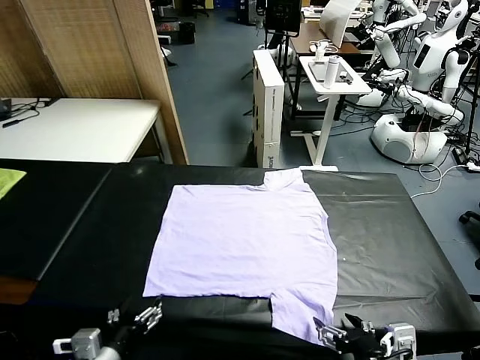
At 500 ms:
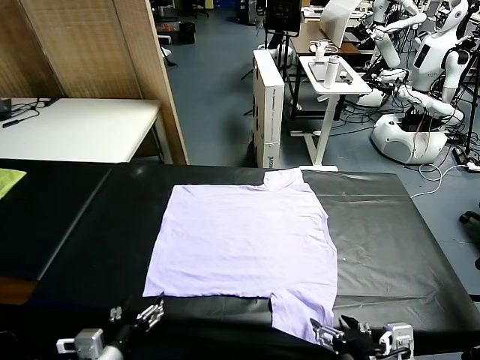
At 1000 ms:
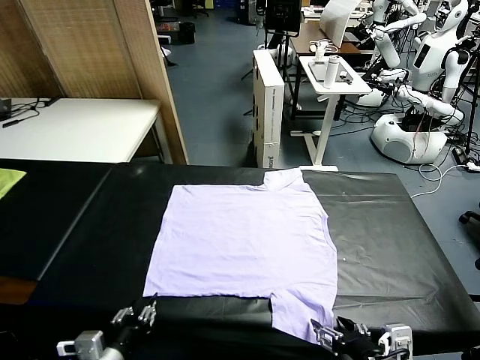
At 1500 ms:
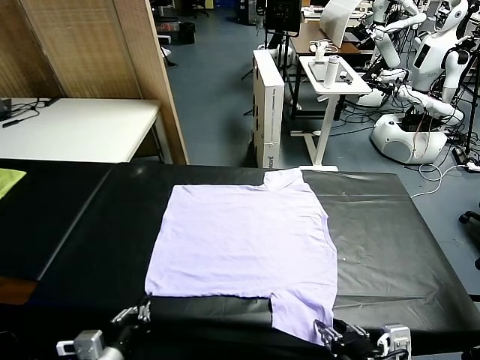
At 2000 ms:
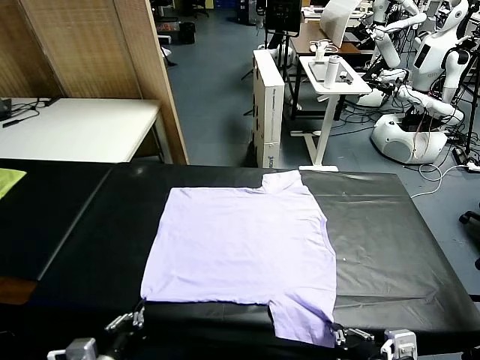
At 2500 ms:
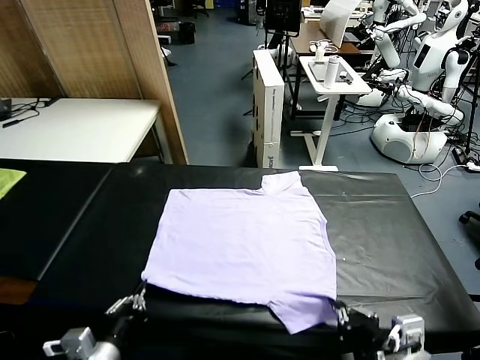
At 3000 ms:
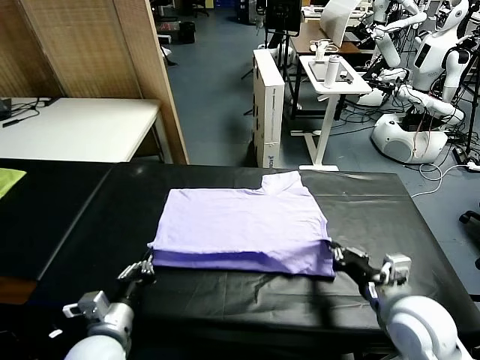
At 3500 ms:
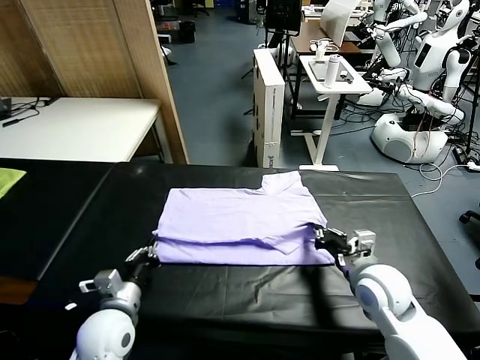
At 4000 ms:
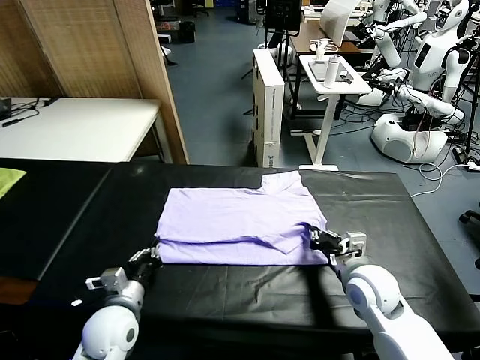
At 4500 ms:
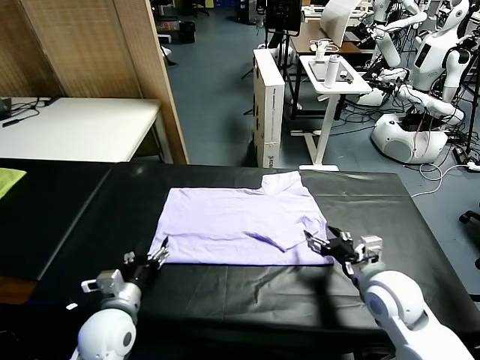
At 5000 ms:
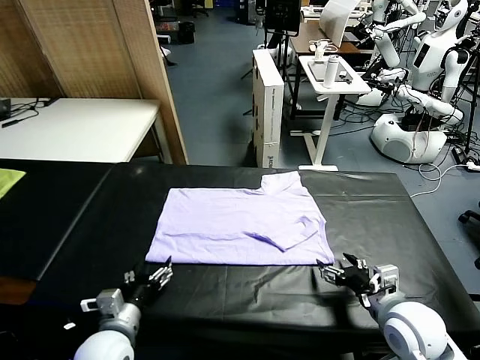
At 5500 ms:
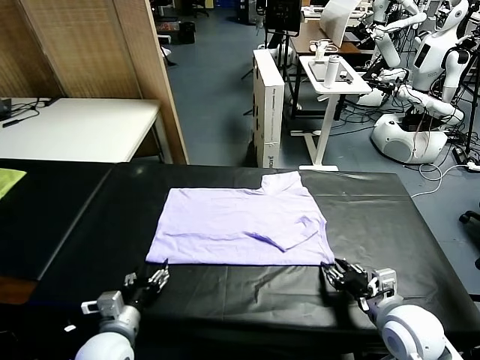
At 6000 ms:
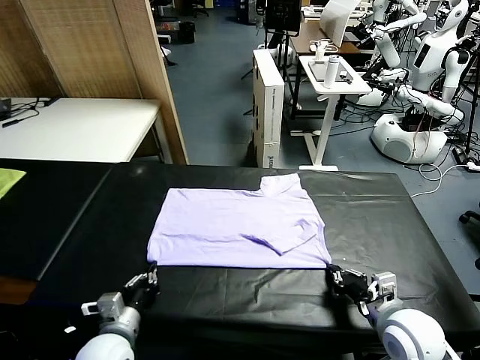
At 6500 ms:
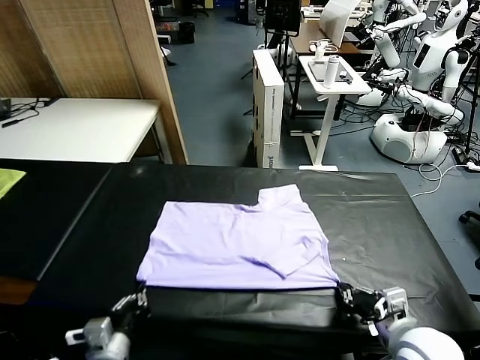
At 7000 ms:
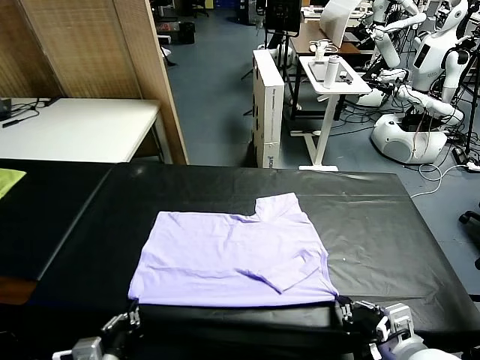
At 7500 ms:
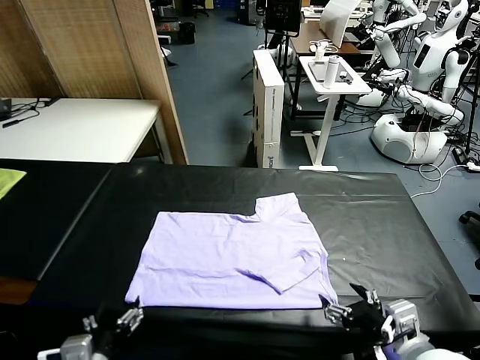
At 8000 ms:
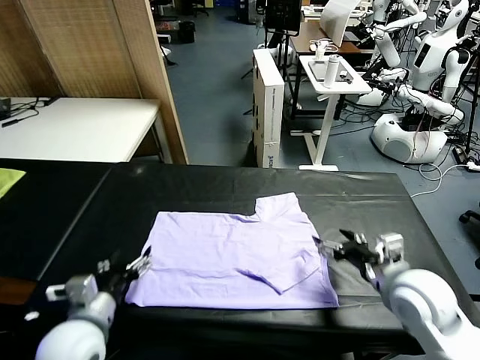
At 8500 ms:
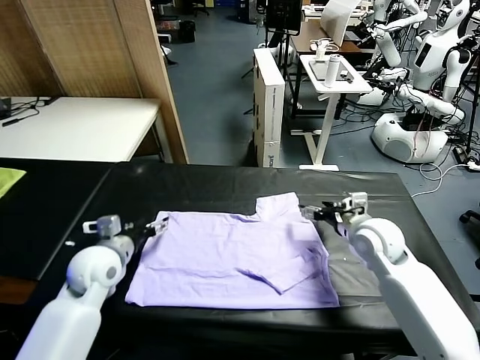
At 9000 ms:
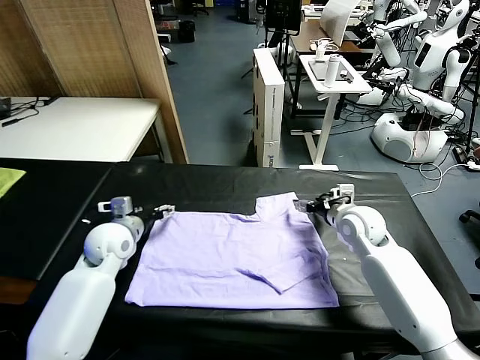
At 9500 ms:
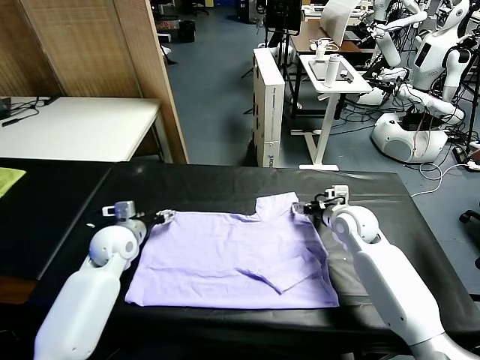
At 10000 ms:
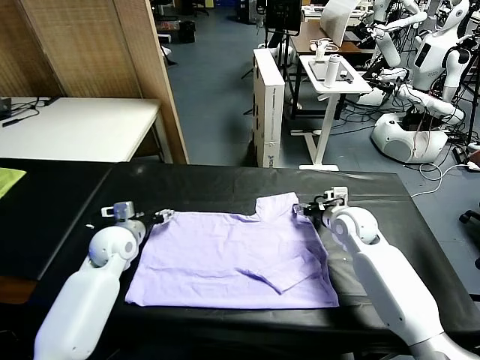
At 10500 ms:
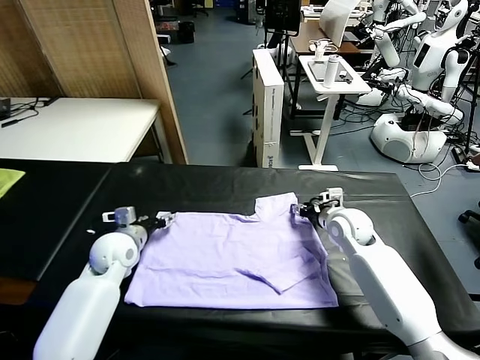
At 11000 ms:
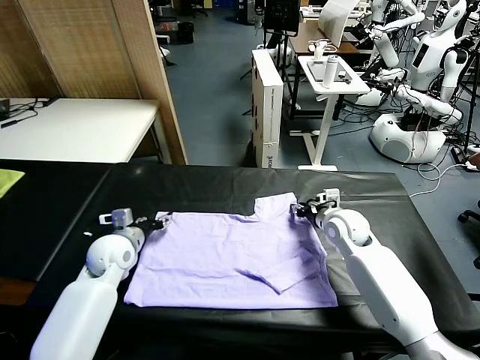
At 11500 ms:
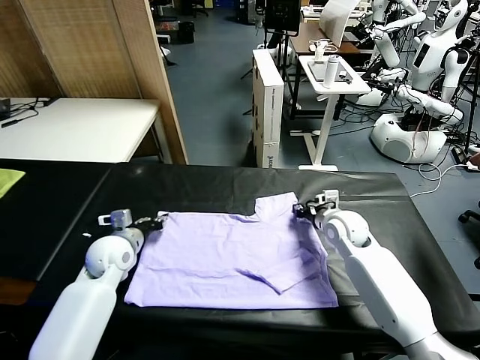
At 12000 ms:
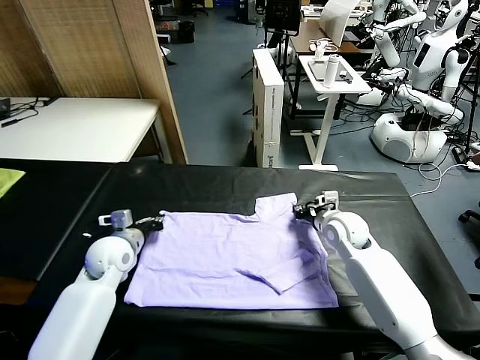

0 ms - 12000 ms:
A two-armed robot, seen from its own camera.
Task of the whole recording: fold and organize the clothes.
Step, 0 ms - 2000 ms: use both grippers simultaneously to clamp the lower edge of the clothing fabric.
Step, 2500 ms - 4500 ms: use both grippers to drag the lower edge of the fabric forward and fold it over the upper edge.
Step, 5000 ms - 7000 ms: Drag the clothes downward with both gripper.
2000 ms - 4000 ms: Both grippers travel together forward, approximately 15 cm. The right gripper opens its fingers.
4000 ms - 6000 ms: The left gripper moves backward, some 5 cm, and opens, then closes again; the right gripper is displaced backward by approximately 10 cm, and closes up.
6000 ms - 8000 ms: The right gripper moves forward, roughly 15 cm, and opens up. The left gripper is displaced upward by roughly 10 cm, goes backward and returns, approximately 10 cm each way, and opens up.
8000 ms - 10000 ms: The left gripper shifts approximately 20 cm forward. Meanwhile the right gripper goes some 10 cm forward and downward, and closes up.
10000 ms - 12000 ms: The left gripper closes its fingers, while the right gripper closes up.

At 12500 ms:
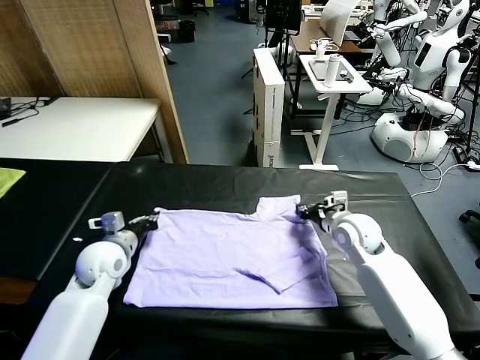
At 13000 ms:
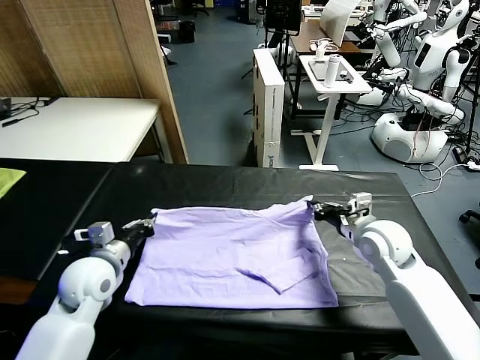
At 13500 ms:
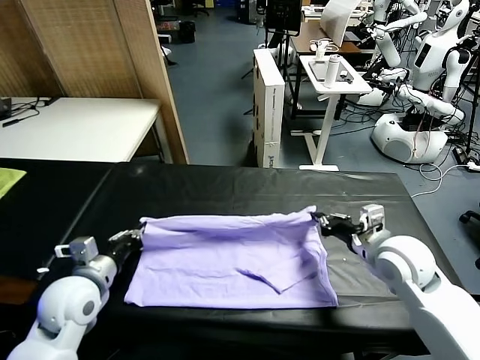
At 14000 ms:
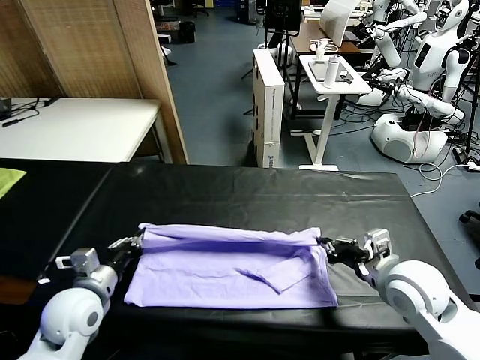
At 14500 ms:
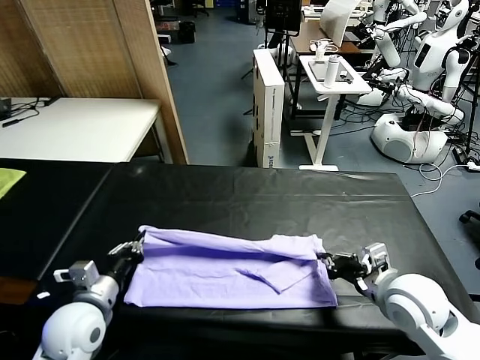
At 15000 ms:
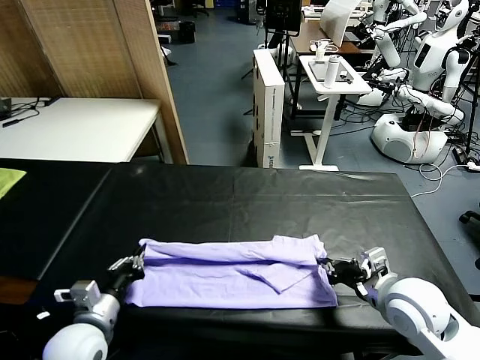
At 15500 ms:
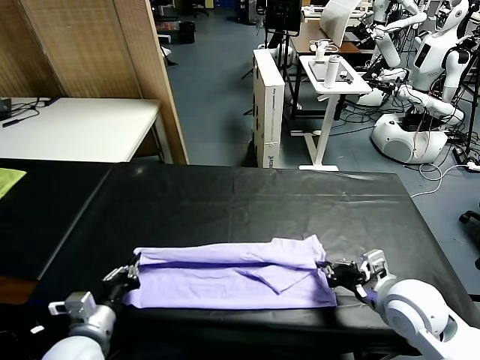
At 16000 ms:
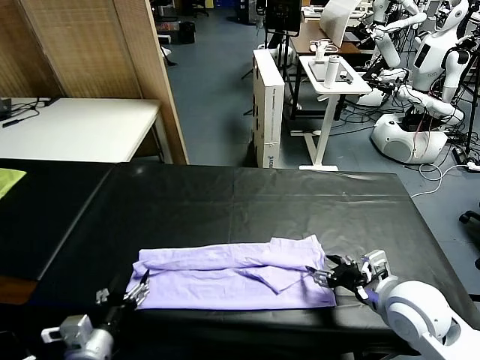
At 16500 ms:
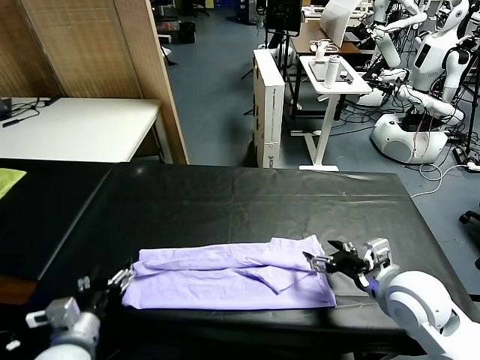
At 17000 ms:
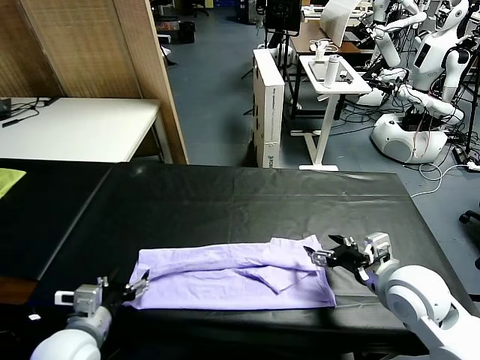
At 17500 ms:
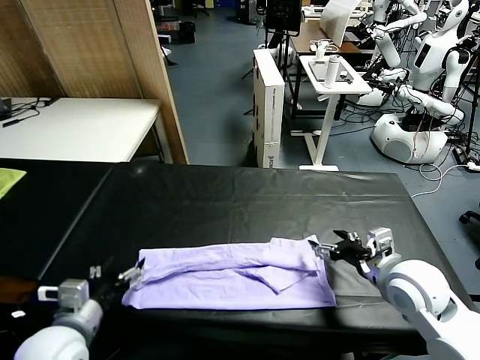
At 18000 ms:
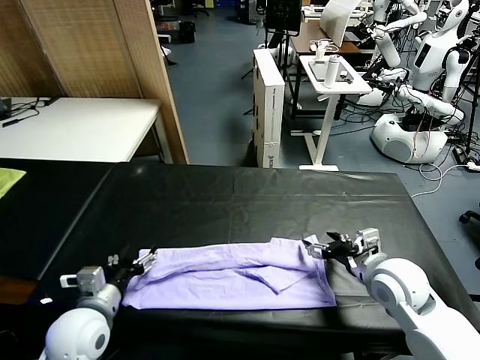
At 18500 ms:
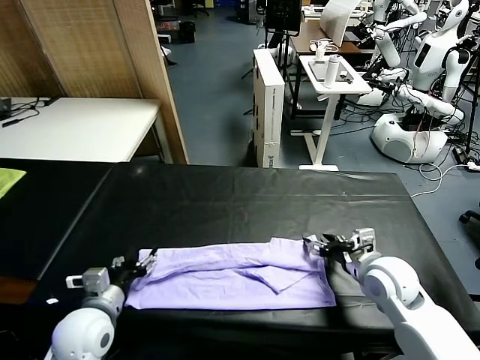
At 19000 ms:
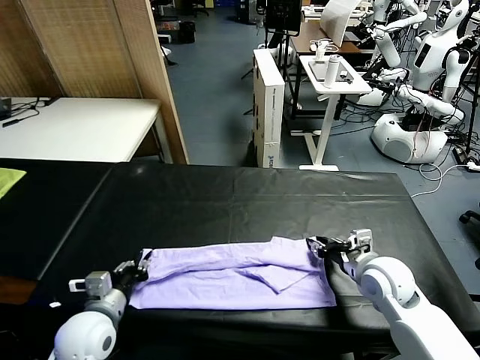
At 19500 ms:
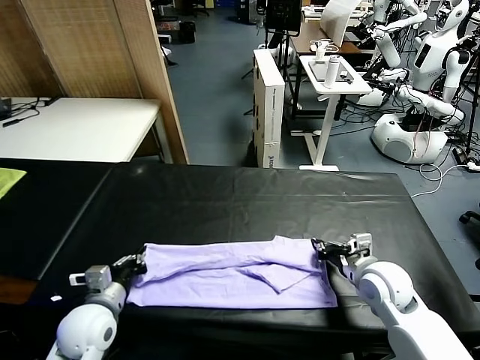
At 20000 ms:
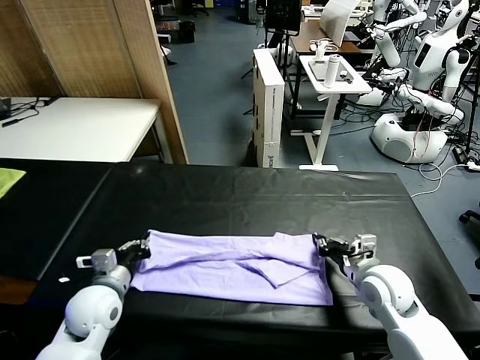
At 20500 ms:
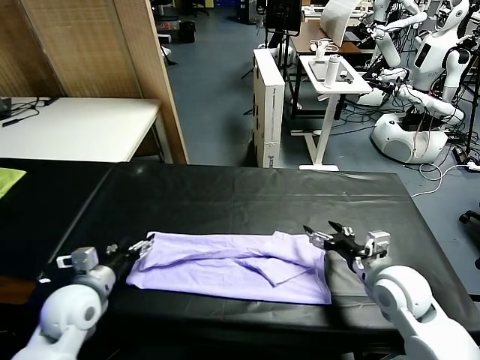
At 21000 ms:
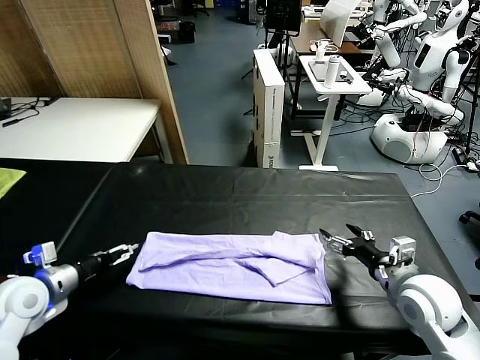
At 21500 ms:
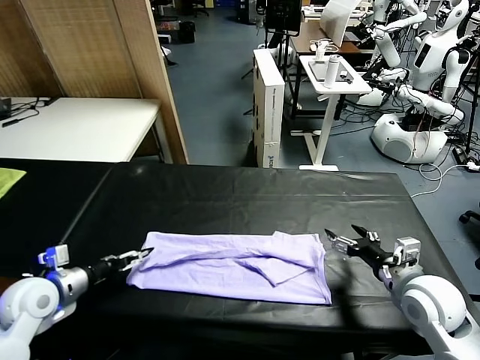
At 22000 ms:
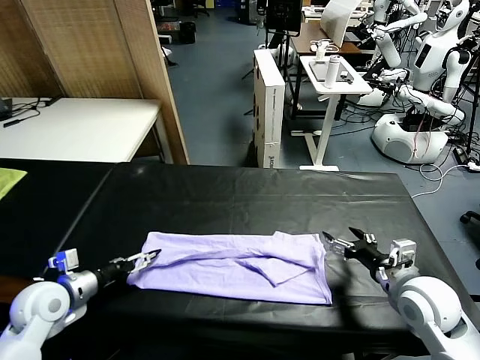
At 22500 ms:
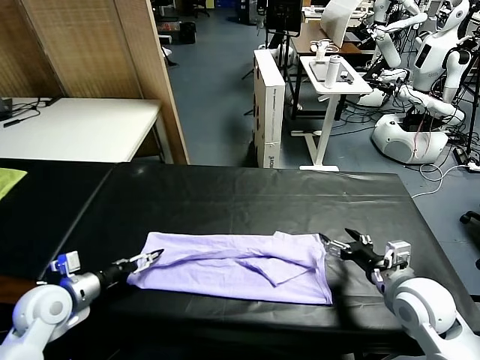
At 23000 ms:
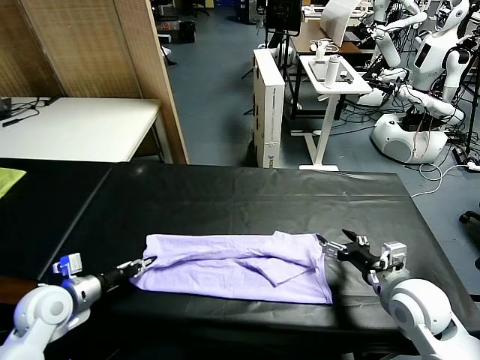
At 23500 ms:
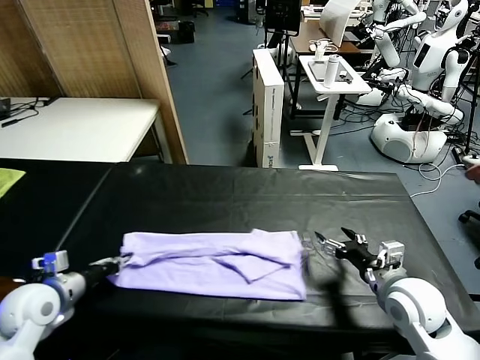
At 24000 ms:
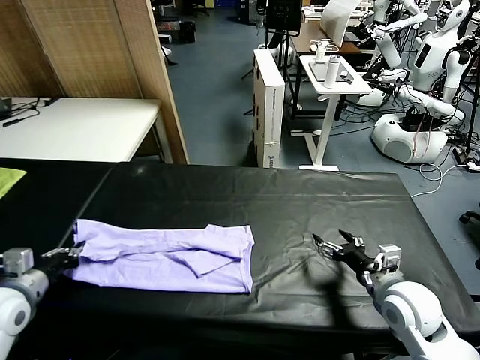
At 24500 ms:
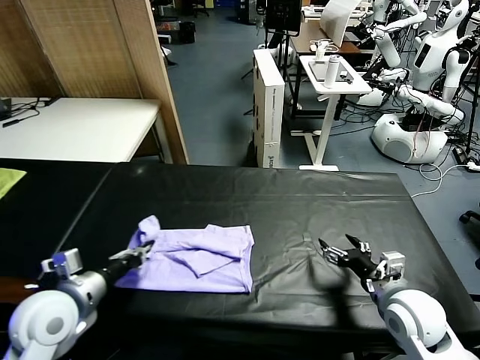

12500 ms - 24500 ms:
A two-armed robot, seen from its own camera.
Task of the whole recording: fold and organize the clothes.
Step, 12500 ms - 16000 ms: use both grippers to drag the upper edge of the fabric backward and fold it over the lower edge.
Step, 16500 ms - 23000 ms: use the left gripper to clamp the left edge of the fabric.
12500 ms - 14500 ms: The two grippers go roughly 15 cm backward.
14500 ms - 16500 ms: The left gripper shifts about 5 cm backward, and opens up; the right gripper opens.
16500 ms - 18500 ms: The left gripper heads forward, covering some 5 cm. Meanwhile the right gripper shifts approximately 10 cm downward and forward.
18500 ms - 20500 ms: The left gripper ends up about 5 cm from where it was, and closes, then reopens; the right gripper closes and opens again.
20500 ms - 22500 ms: The left gripper goes about 5 cm to the left.
22500 ms - 24500 ms: The left gripper is displaced upward and to the right by roughly 10 cm, and closes its fingers.

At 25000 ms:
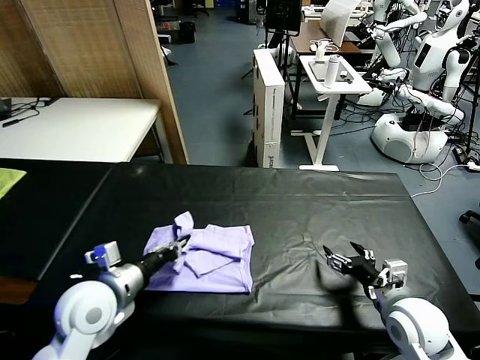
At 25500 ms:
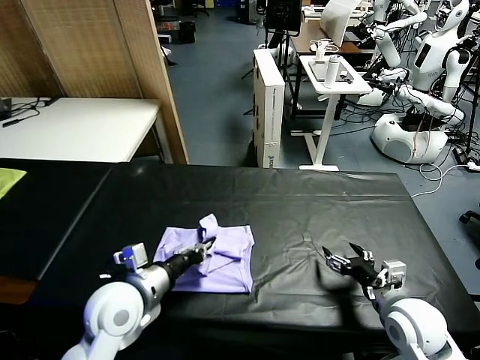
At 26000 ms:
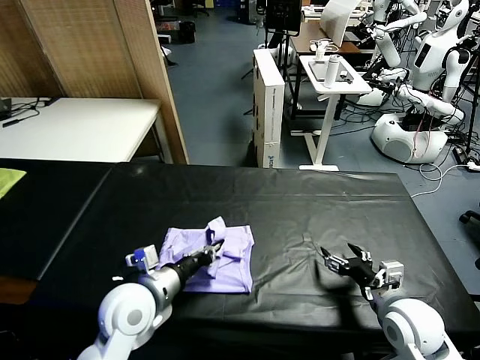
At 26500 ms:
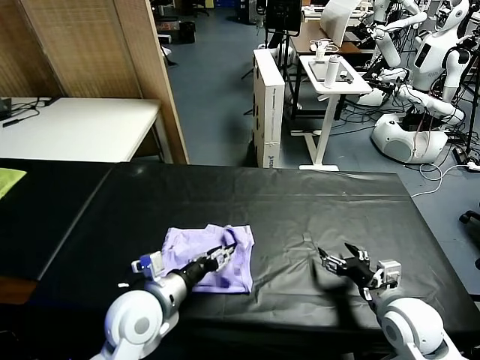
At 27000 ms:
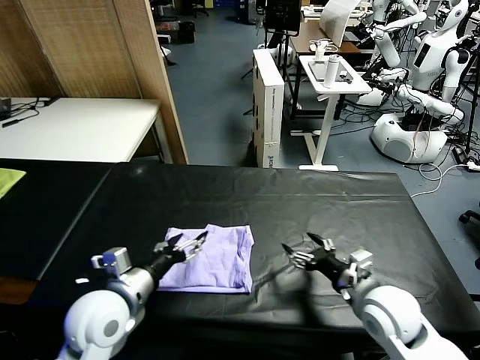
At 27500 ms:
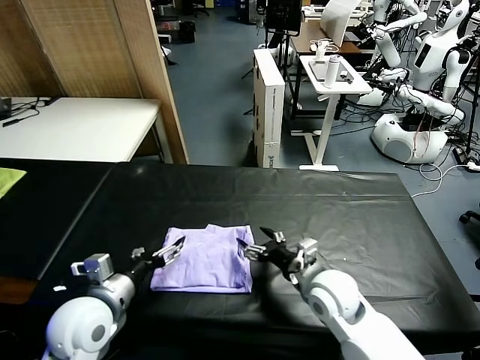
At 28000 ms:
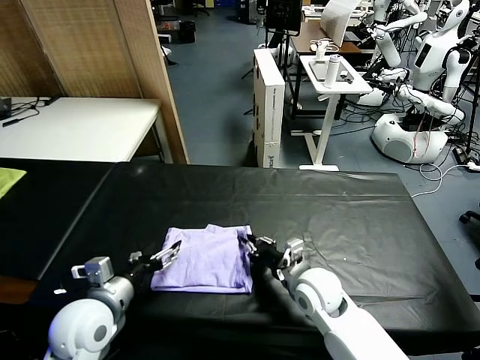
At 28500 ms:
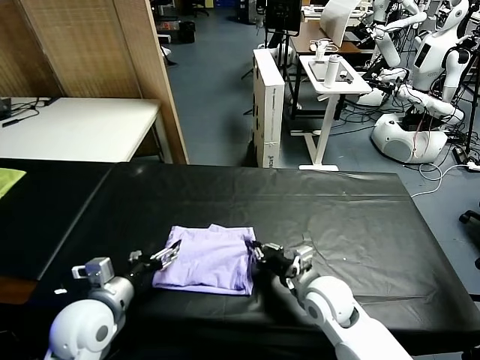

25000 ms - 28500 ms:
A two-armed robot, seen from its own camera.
Task of the whole recording: fold and organize the clothes.
25000 ms - 27000 ms: The left gripper opens, while the right gripper travels to the left by approximately 5 cm.
27000 ms - 28500 ms: The right gripper travels to the left and downward by roughly 10 cm, and closes.
